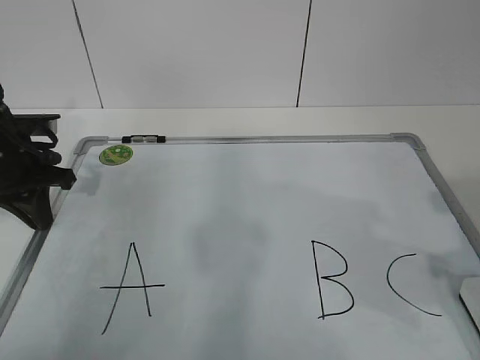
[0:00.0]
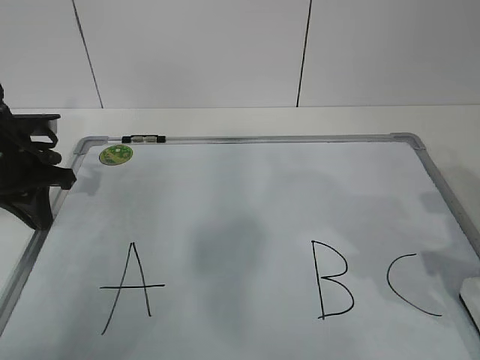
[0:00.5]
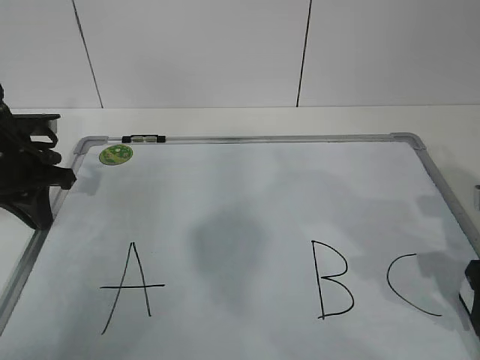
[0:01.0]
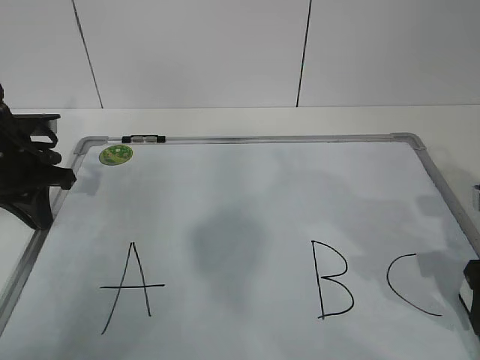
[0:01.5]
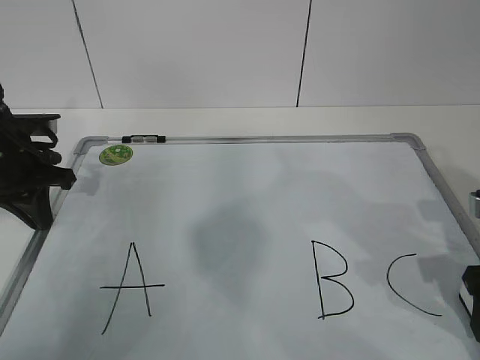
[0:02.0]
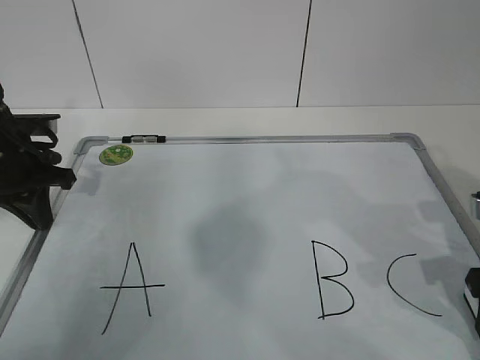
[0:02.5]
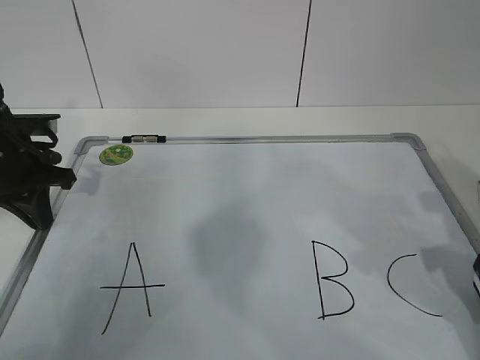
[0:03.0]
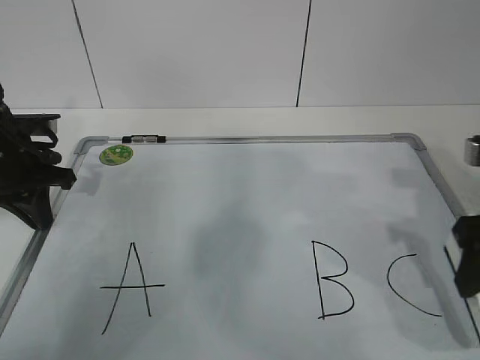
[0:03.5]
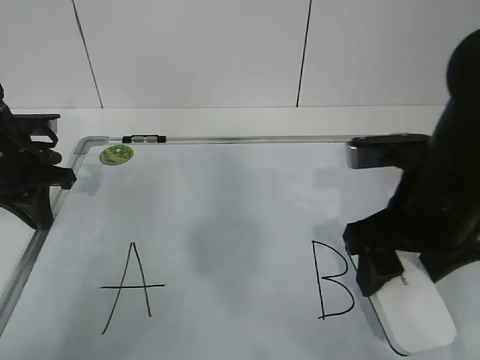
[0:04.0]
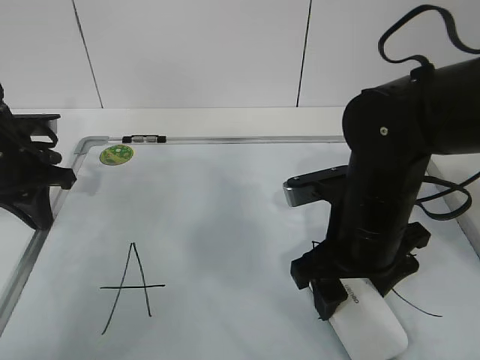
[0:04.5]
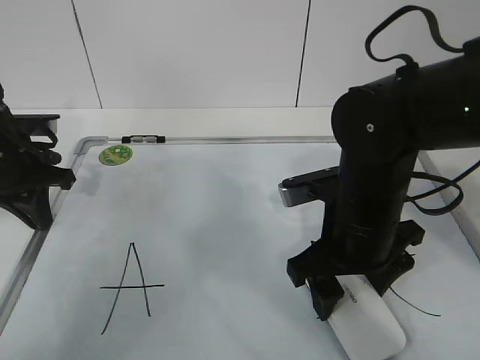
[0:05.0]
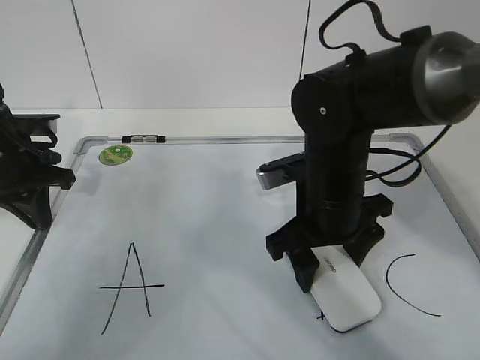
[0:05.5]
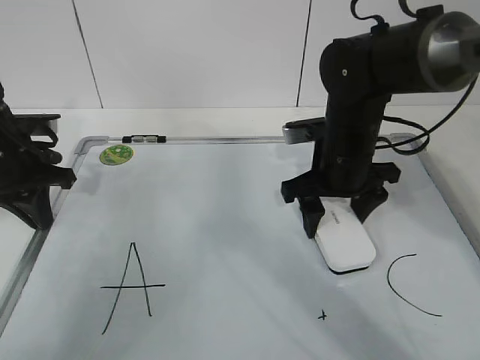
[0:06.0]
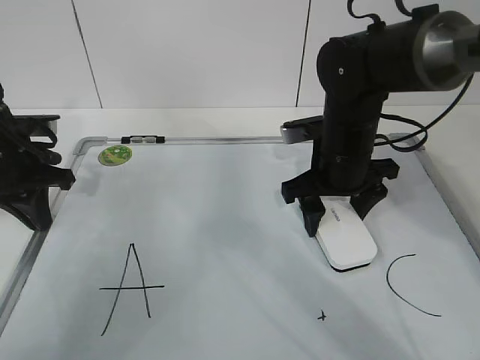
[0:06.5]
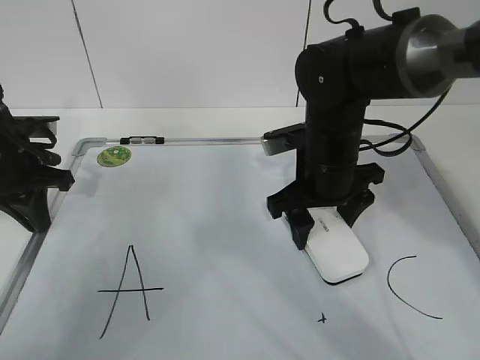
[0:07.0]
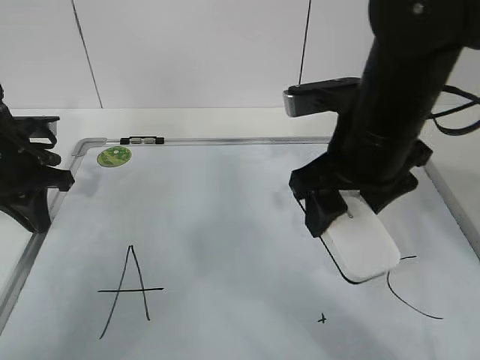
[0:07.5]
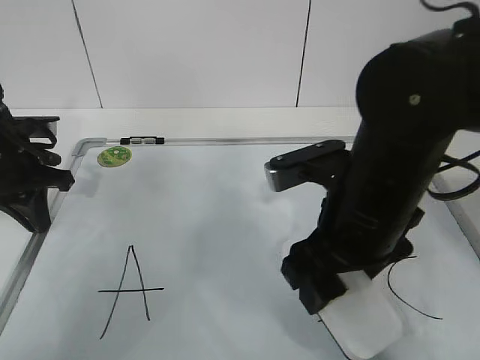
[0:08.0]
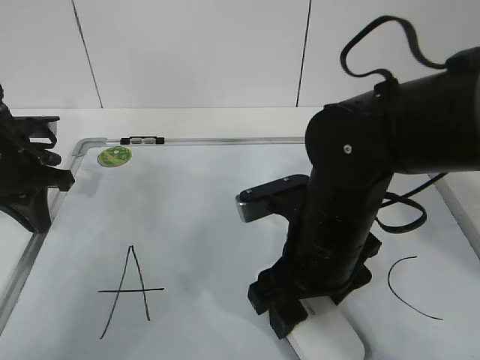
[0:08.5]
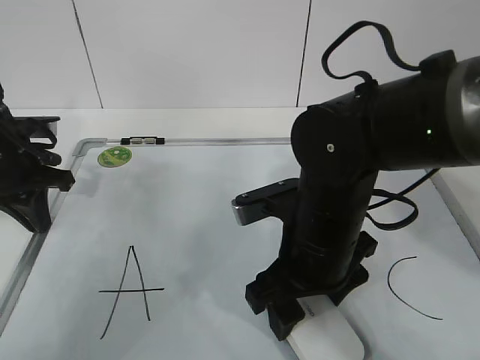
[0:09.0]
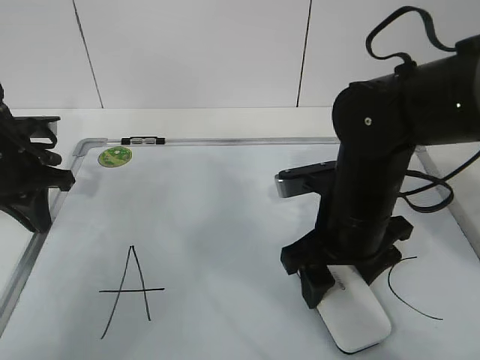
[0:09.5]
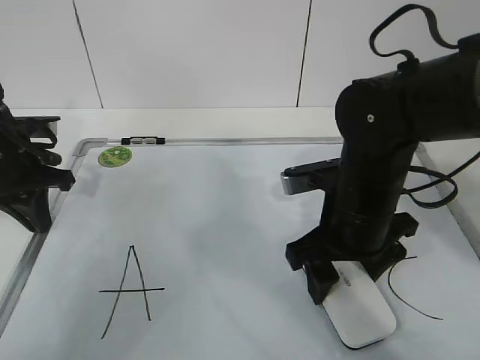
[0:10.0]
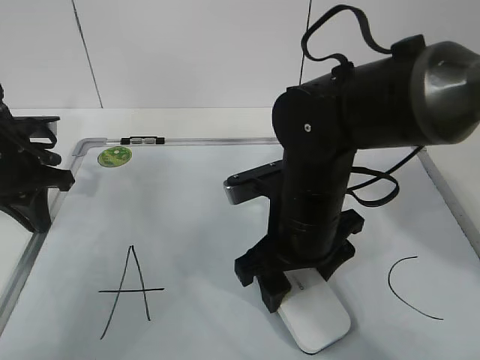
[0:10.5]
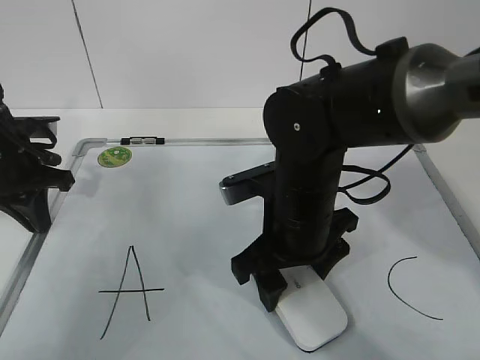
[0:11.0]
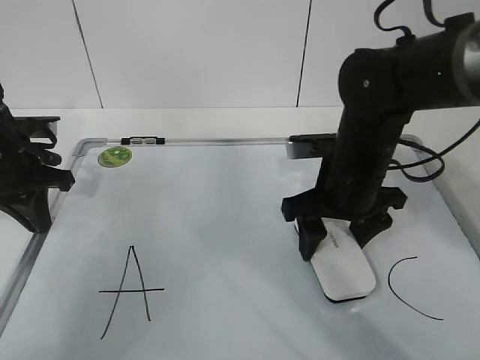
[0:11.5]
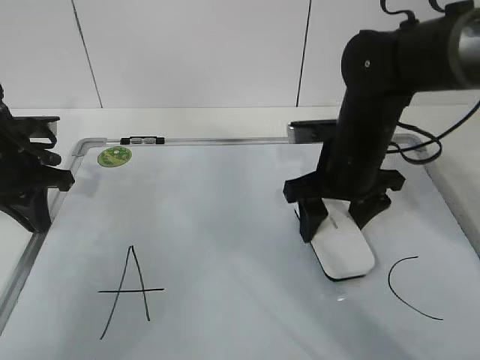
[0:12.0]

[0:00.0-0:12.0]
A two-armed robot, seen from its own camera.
Task of the whole recording: pick up the eraser on the blackboard and erase the letter "B".
Step, 0:01.5 to 0:08.5: Erase the letter B with your right hand.
Step, 0:09.0 to 0:11.5: Put down the eraser with your right hand.
0:00.0 to 0:02.0: The right gripper travels downward and forward by roughly 10 cm.
0:02.0 to 0:04.0: The right gripper is displaced to the left and upward by roughly 15 cm.
0:04.0 to 0:06.0: The right gripper is displaced forward and downward by about 15 cm.
0:06.0 to 0:08.0: The right gripper travels backward and upward by approximately 15 cm.
0:08.0 to 0:10.0: The right gripper is displaced downward by approximately 5 cm.
0:10.0 to 0:12.0: The right gripper goes approximately 5 cm forward, and goes to the left and returns, some 5 cm each way.

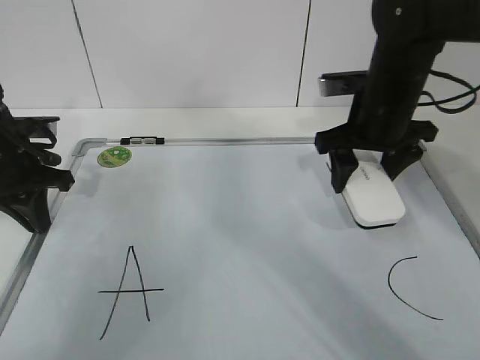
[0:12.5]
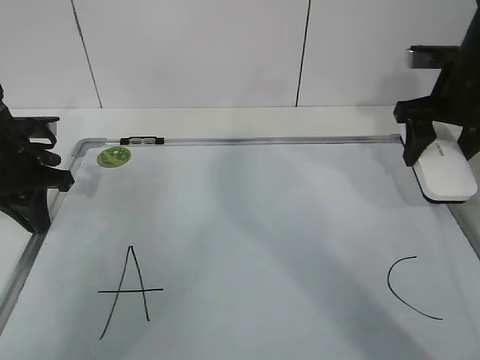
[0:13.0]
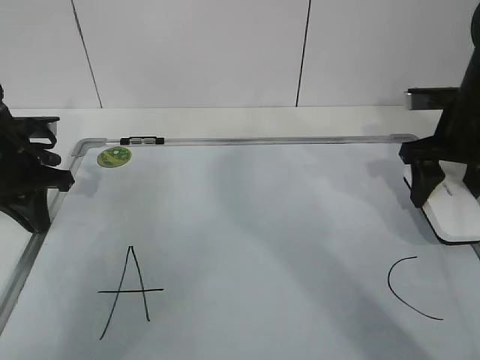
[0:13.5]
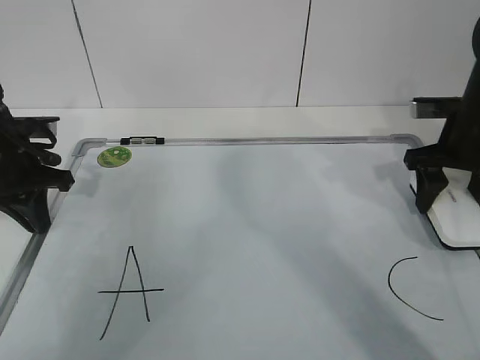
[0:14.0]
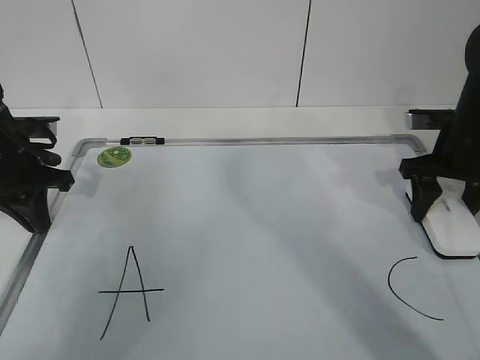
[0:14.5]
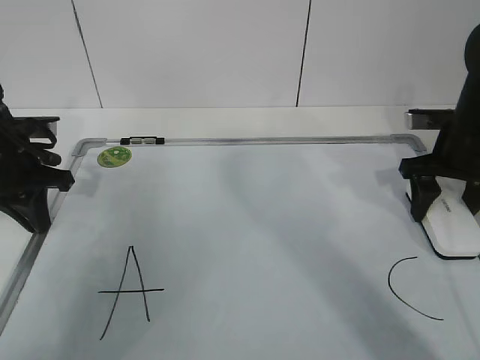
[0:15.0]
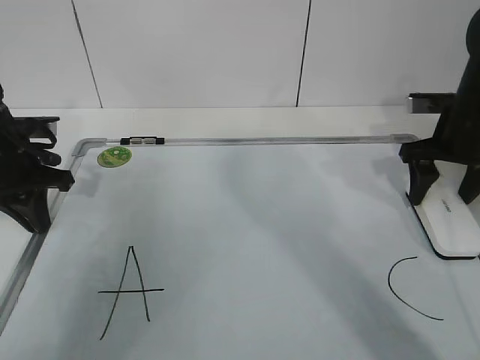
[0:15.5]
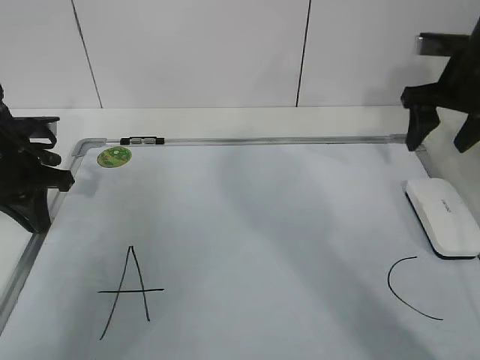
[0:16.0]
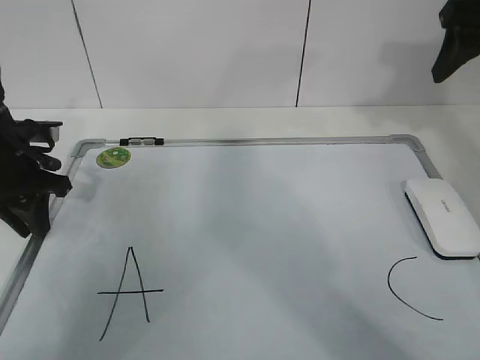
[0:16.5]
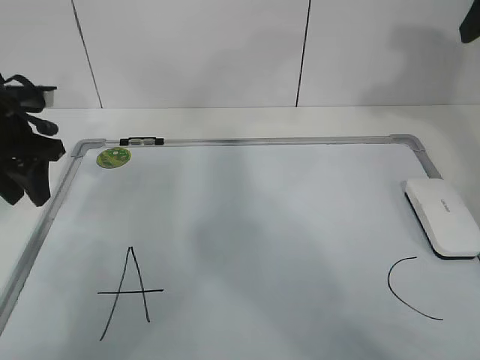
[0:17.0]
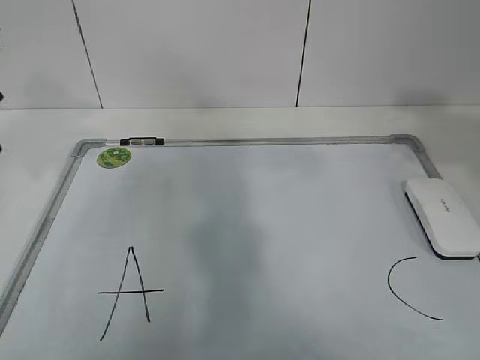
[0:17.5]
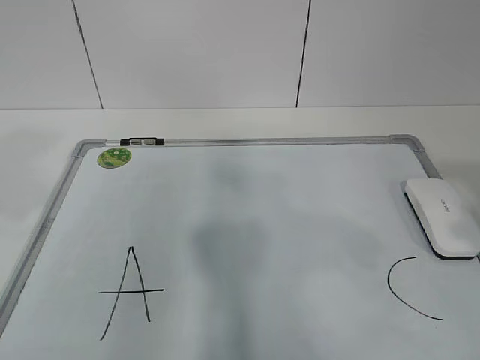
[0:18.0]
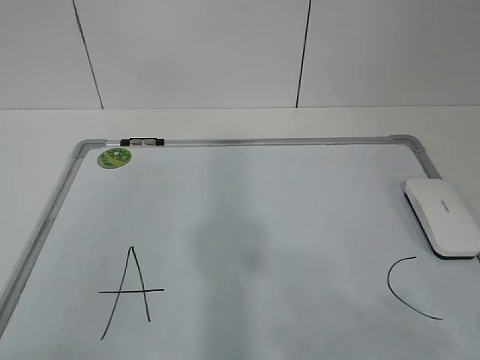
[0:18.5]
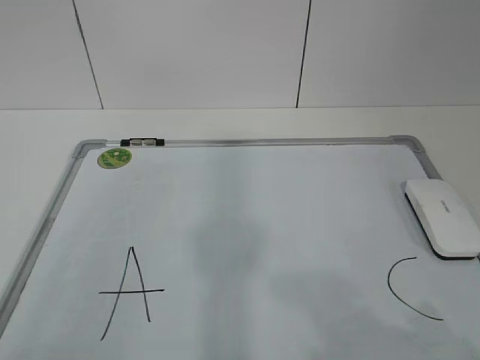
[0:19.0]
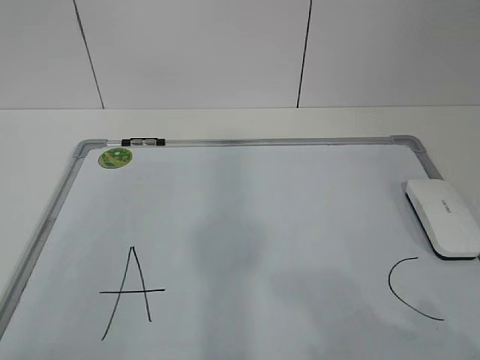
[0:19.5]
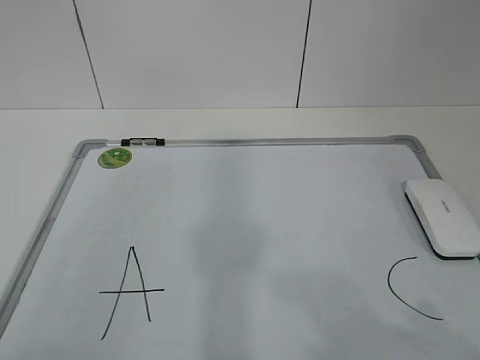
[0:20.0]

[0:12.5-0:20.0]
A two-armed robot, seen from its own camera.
Task of the whole recording: pick up the eraser on the blackboard and erase the letter "B".
0:12.5 to 0:14.5: The right gripper travels to the right by approximately 10 cm.
0:14.5 to 0:16.5: The left gripper opens. The right gripper is displaced upward by some 15 cm.
0:16.5 to 0:18.0: The left gripper shifts about 30 cm backward and upward, and opens. The right gripper is displaced backward by about 30 cm.
0:18.0 to 0:20.0: The right gripper heads downward and backward, covering about 15 cm.

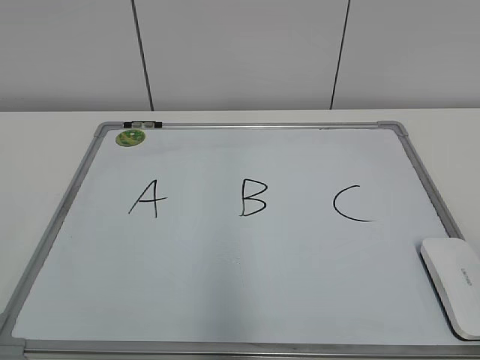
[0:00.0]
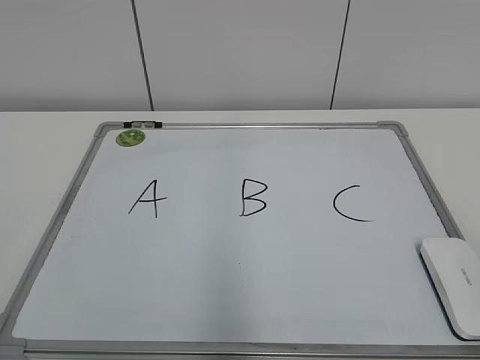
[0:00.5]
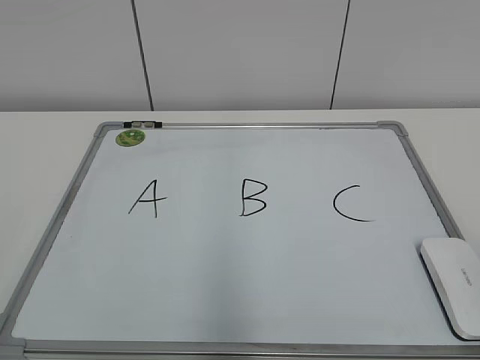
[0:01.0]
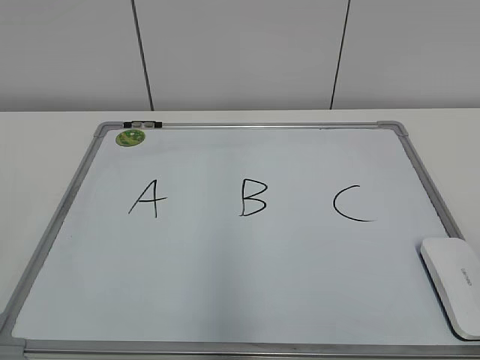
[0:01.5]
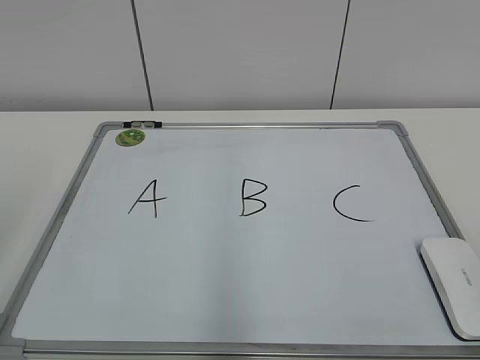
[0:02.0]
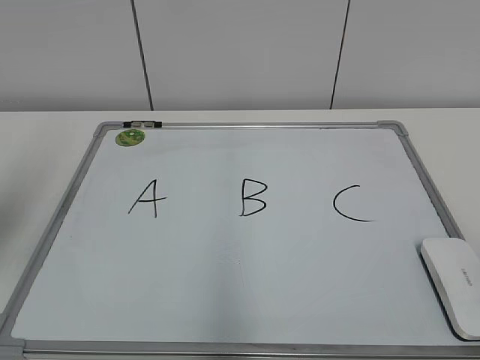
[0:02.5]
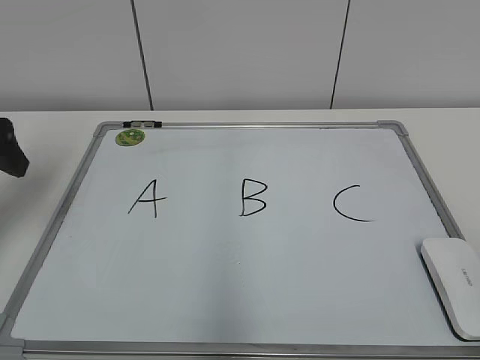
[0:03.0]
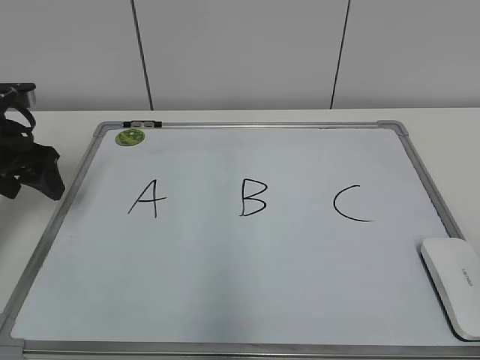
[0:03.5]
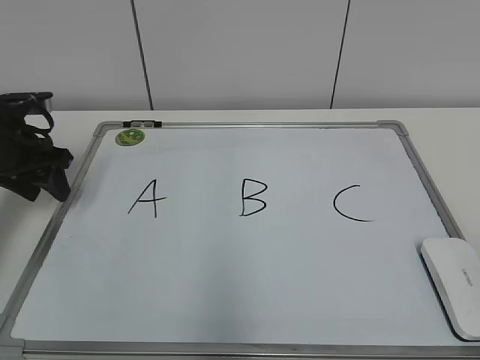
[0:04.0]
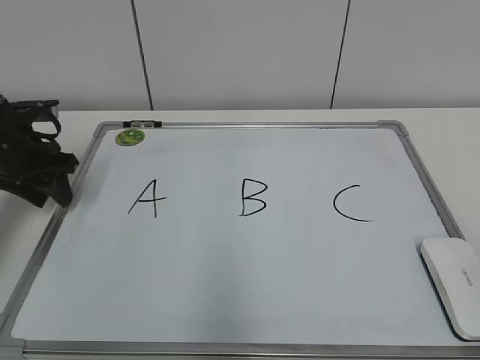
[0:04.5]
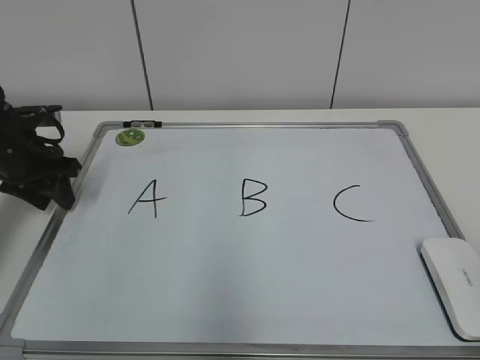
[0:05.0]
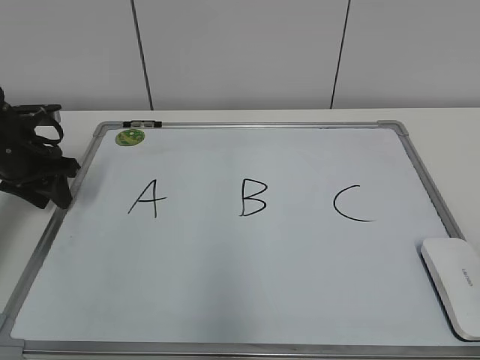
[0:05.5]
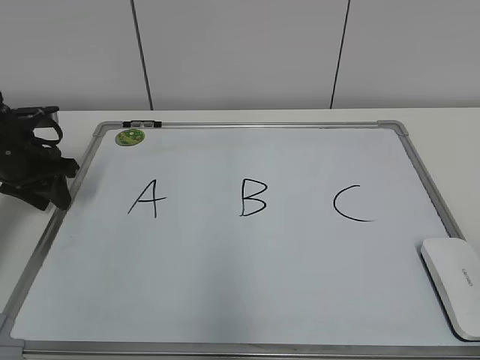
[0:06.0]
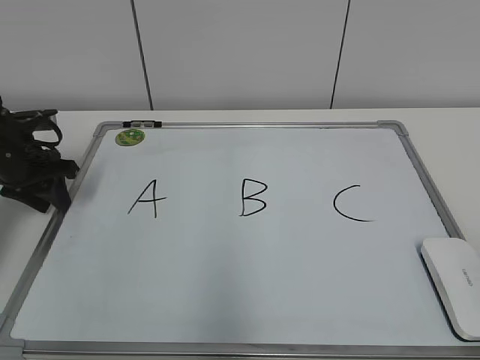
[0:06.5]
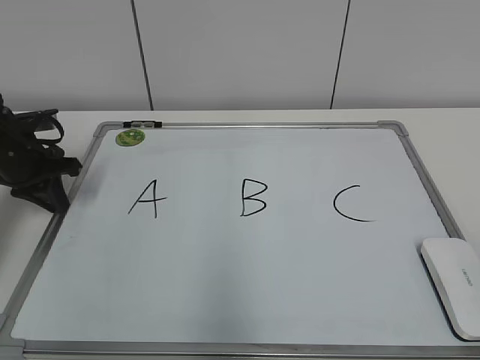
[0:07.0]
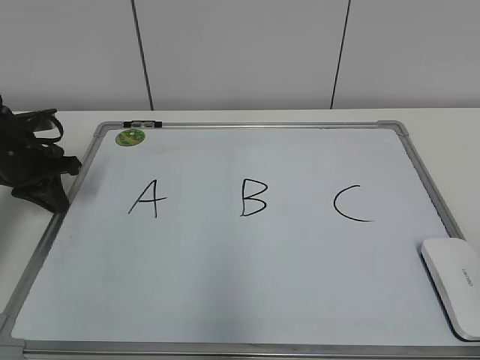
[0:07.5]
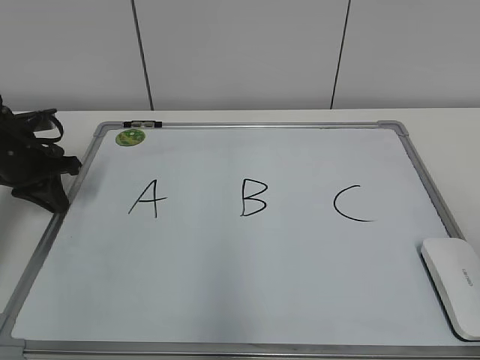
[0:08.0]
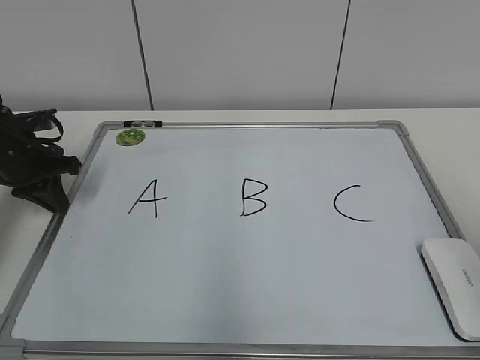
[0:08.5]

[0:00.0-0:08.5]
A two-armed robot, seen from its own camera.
Task of the whole recording: pick up the eraser on the blackboard and erase the letter "B".
Step, 0:00.0 to 0:07.0: Hold the drawing board steady with your left hand.
0:02.0 to 0:04.0: The left gripper goes approximately 35 cm forward and downward, and closes up.
0:04.0 to 0:06.5: The grippers stay close to where they were, moving slightly.
0:06.5 to 0:08.5: The left gripper closes its fingers.
